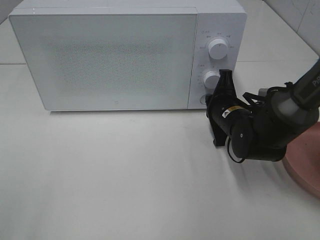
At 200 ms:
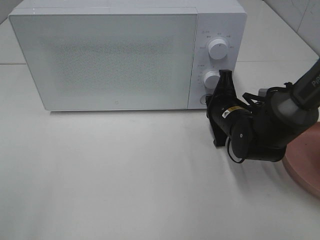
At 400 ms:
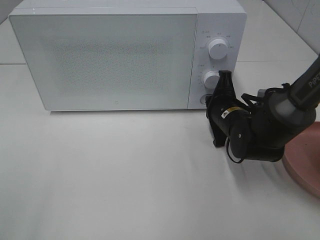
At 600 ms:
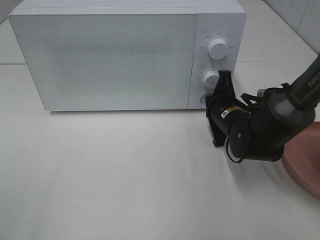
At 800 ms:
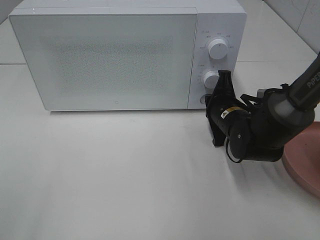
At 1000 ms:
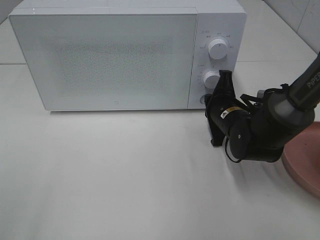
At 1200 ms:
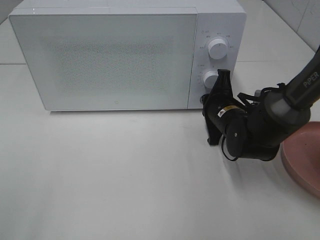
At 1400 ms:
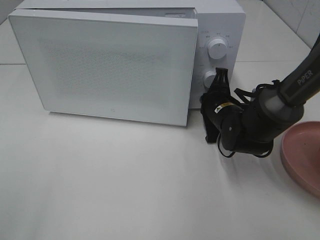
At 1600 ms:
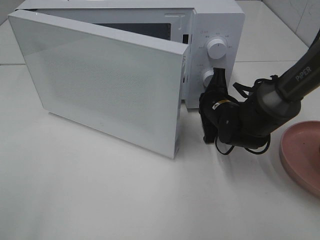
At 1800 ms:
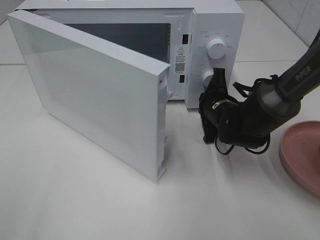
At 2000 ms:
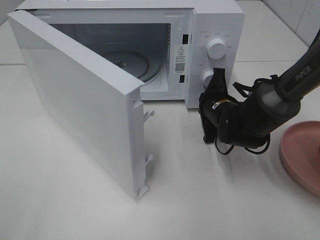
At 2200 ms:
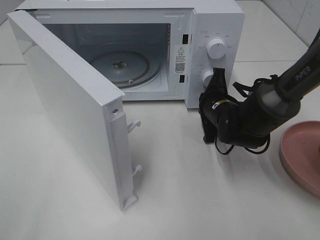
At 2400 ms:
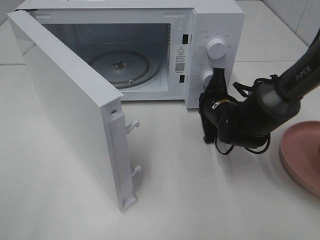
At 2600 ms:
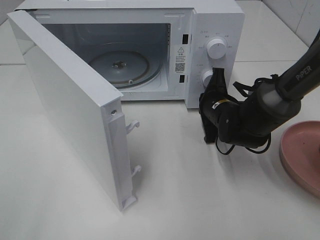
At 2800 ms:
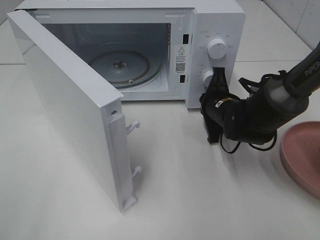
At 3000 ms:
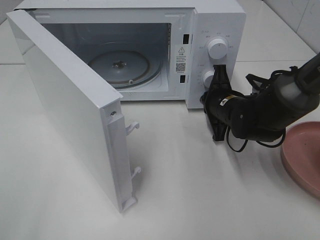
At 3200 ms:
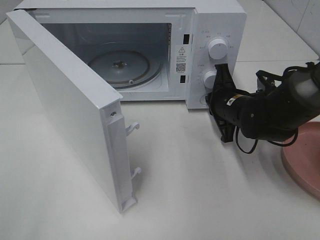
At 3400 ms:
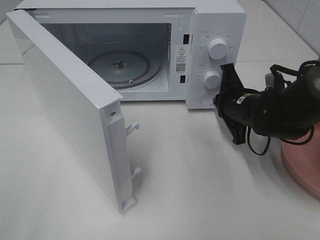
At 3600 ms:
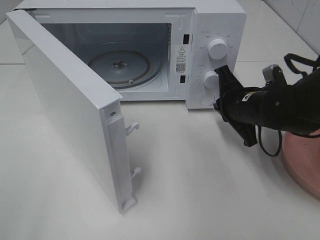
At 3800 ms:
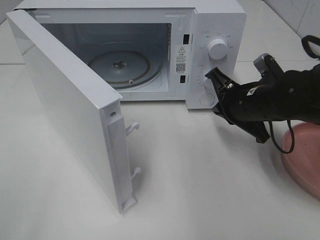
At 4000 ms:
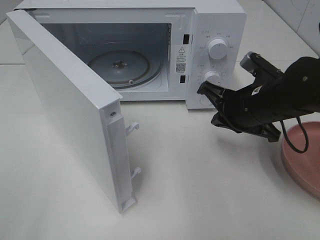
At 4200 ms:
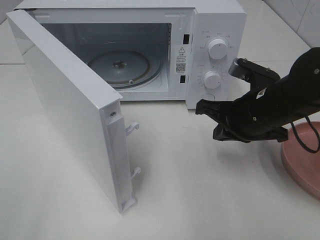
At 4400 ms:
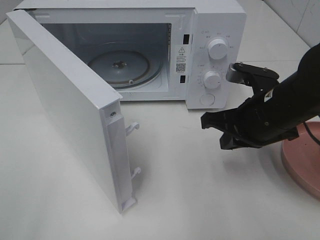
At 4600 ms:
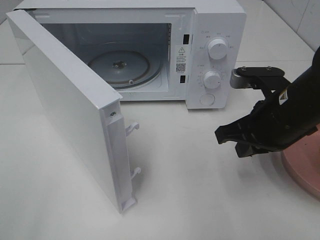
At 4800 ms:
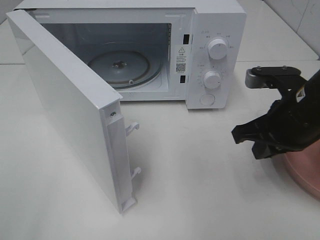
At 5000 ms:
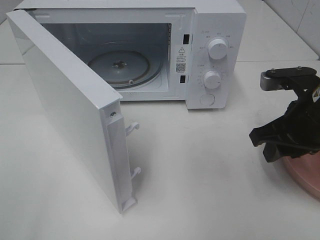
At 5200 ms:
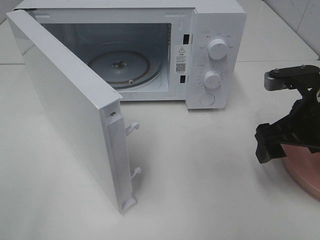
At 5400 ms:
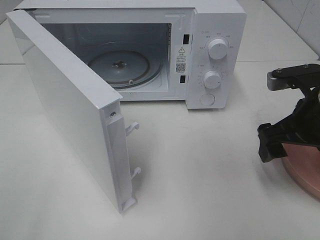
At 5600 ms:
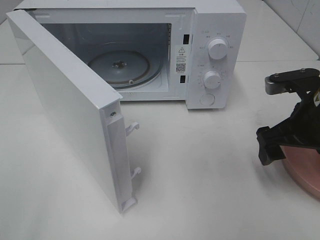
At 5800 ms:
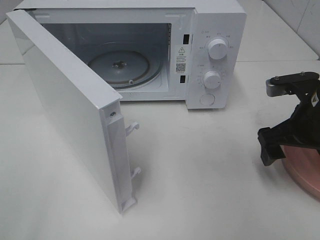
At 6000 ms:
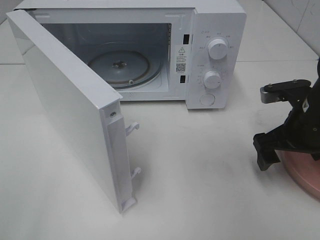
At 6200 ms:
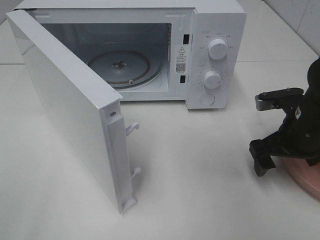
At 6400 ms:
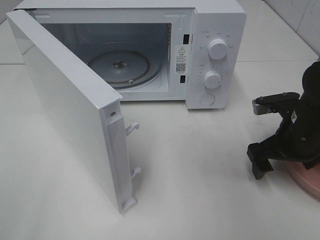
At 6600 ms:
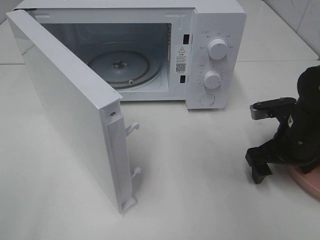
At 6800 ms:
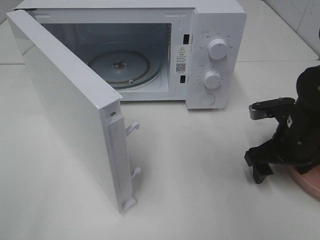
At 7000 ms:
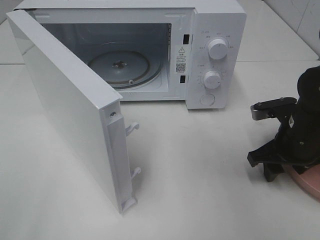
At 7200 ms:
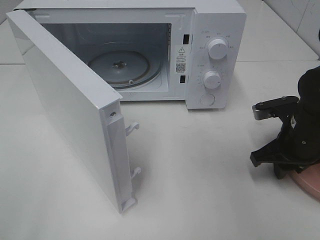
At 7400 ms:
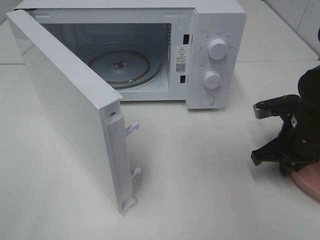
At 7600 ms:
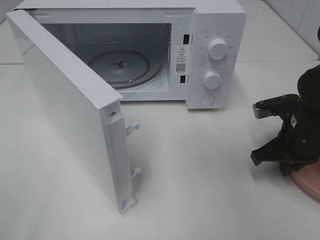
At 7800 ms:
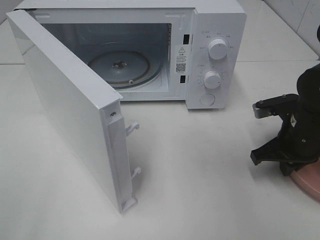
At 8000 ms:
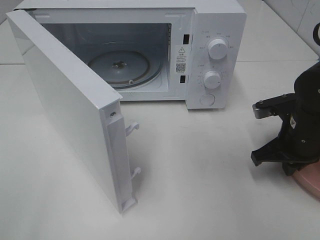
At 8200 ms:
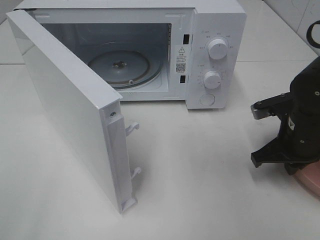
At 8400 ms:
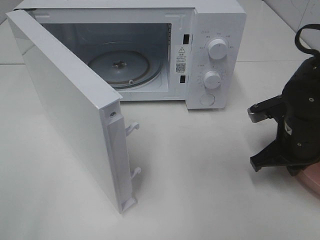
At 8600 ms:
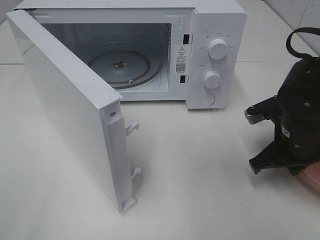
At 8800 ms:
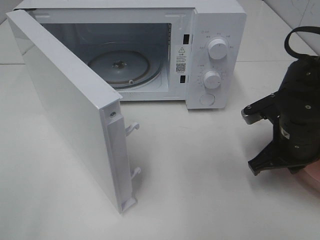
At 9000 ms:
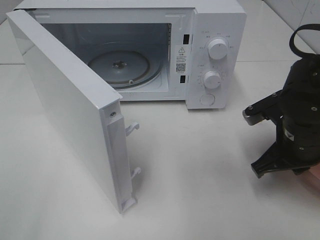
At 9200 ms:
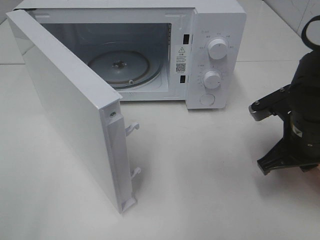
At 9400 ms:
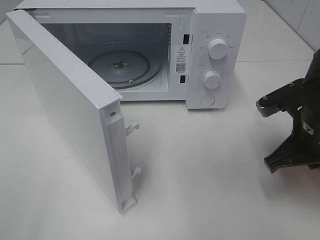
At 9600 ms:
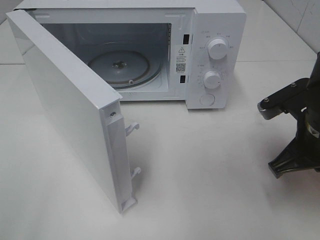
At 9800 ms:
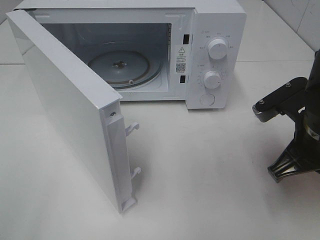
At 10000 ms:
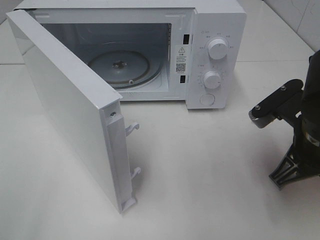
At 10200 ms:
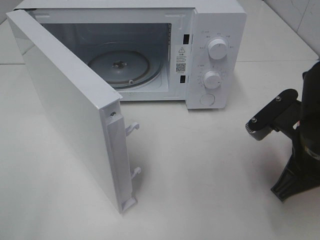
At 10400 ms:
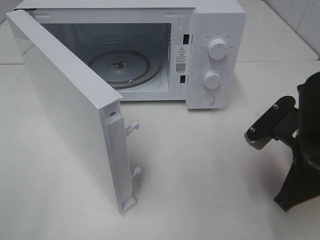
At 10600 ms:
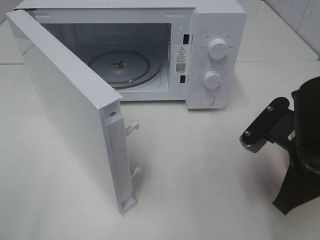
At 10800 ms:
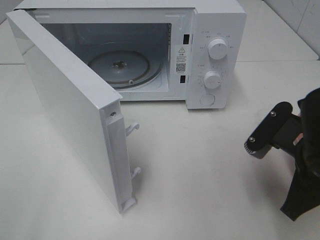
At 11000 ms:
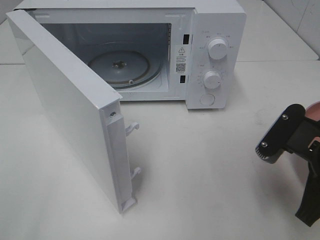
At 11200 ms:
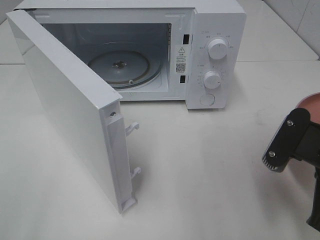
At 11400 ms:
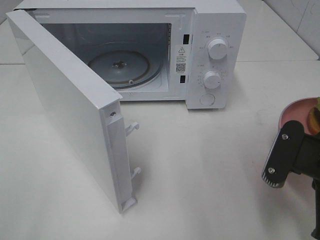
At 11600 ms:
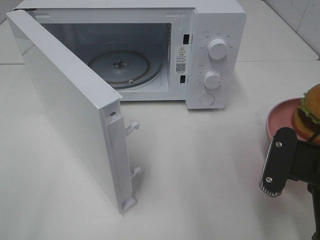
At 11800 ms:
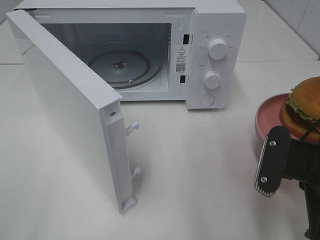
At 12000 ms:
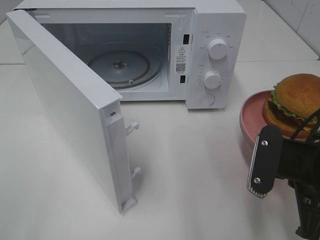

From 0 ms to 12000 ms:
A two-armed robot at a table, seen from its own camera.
Task of the whole recording: Heat the burger.
Step, from 0 ms to 3200 ms: Right hand: press the switch.
Step, from 3400 ms to 7400 ms: Right hand: grab the plate with the hamburger.
From 0 ms to 1600 ms: The grippers stay close to where they were, moving slightly.
From 3000 ms to 4400 ms: The right gripper goes about 15 cm backward and upward.
From 4400 ms to 6000 ms: The right gripper shifts approximately 5 cm to the right, and opens up.
From 6000 ms to 7600 ms: The right gripper closes up.
From 7600 ms to 9000 ms: The right gripper ends up some 5 cm from where it was.
From 9000 ms to 10400 ms: The right gripper travels backward by roughly 5 cm.

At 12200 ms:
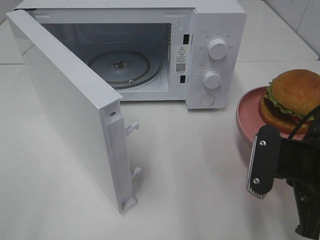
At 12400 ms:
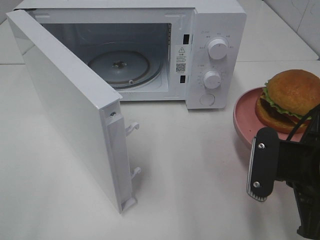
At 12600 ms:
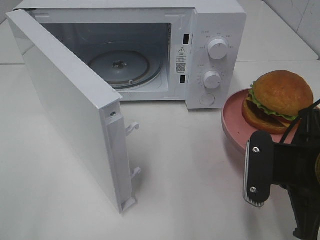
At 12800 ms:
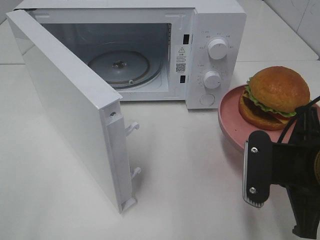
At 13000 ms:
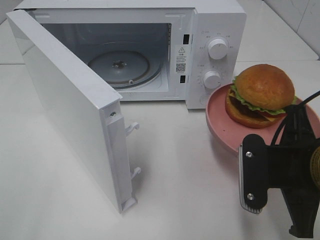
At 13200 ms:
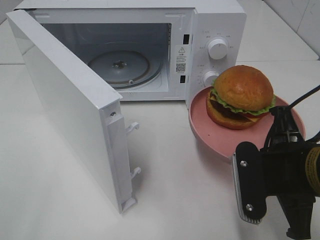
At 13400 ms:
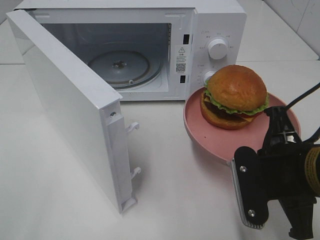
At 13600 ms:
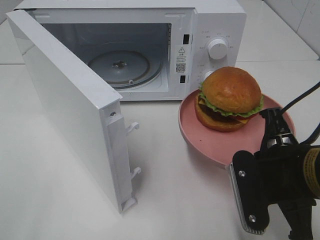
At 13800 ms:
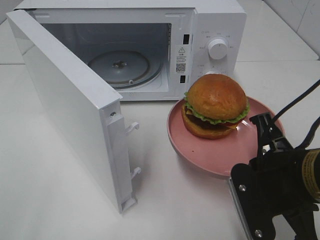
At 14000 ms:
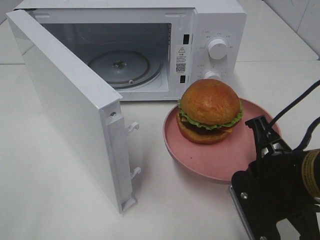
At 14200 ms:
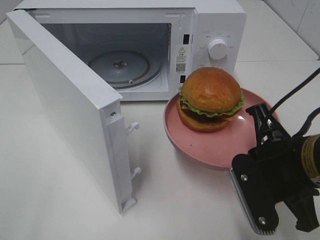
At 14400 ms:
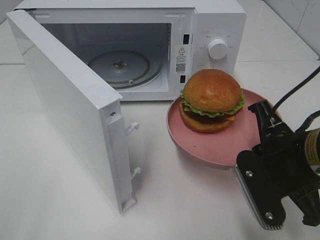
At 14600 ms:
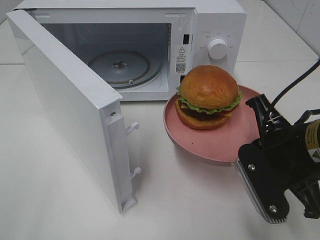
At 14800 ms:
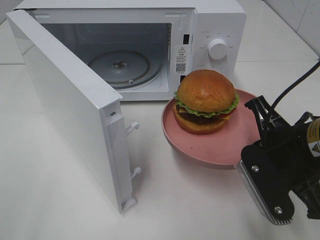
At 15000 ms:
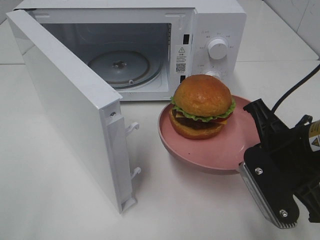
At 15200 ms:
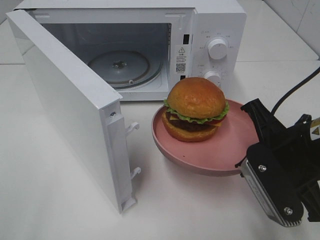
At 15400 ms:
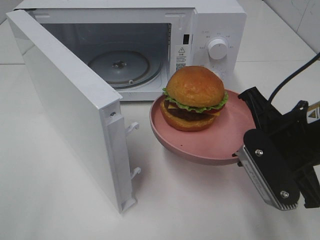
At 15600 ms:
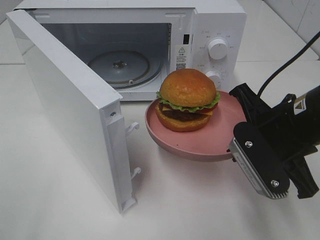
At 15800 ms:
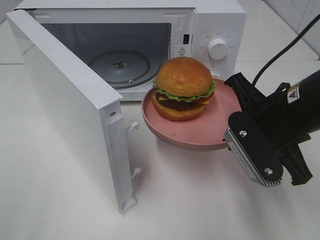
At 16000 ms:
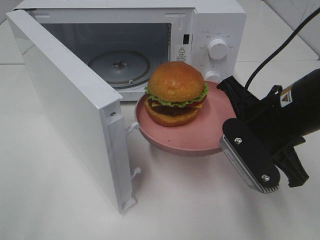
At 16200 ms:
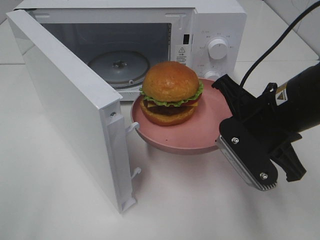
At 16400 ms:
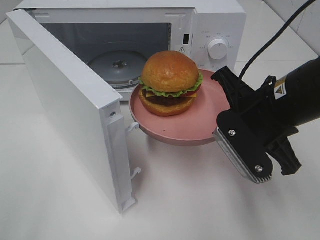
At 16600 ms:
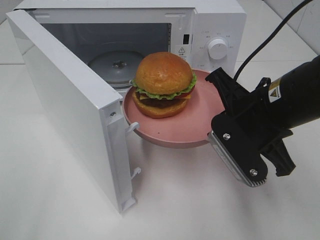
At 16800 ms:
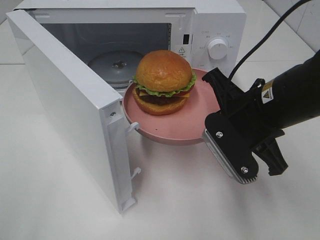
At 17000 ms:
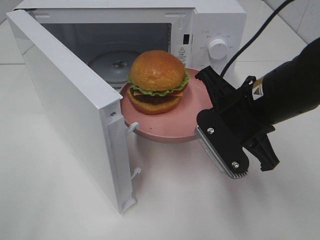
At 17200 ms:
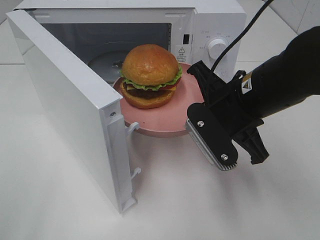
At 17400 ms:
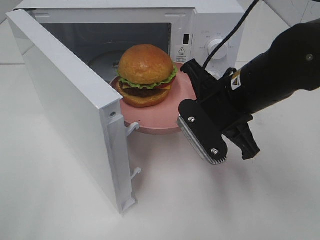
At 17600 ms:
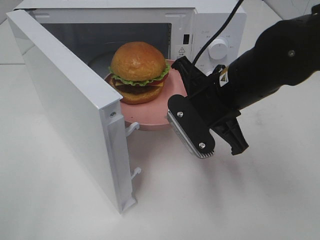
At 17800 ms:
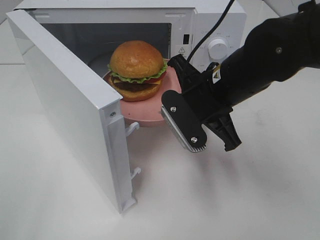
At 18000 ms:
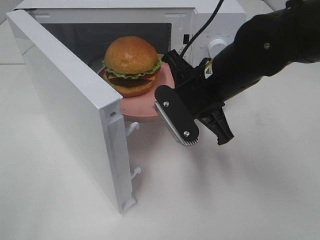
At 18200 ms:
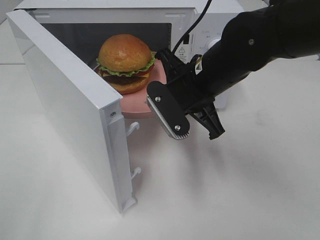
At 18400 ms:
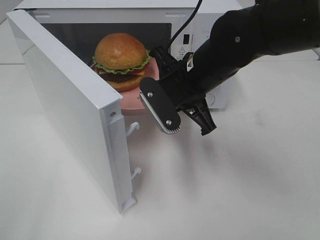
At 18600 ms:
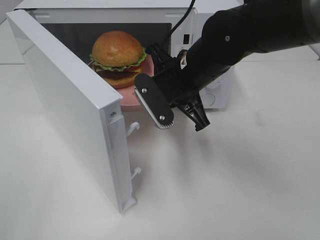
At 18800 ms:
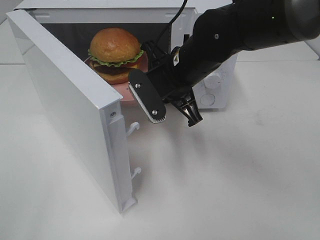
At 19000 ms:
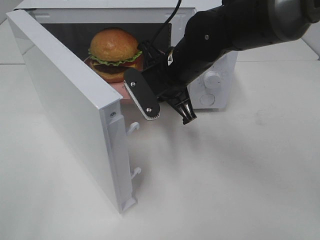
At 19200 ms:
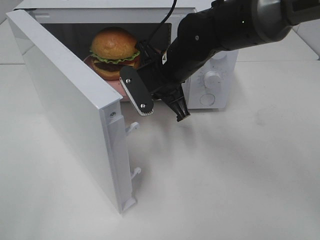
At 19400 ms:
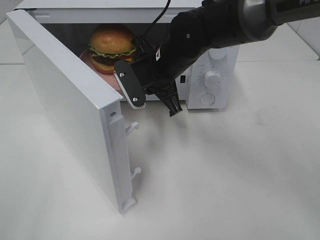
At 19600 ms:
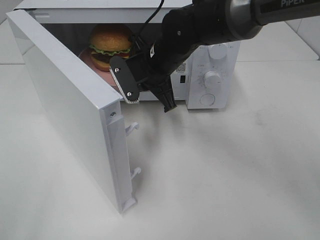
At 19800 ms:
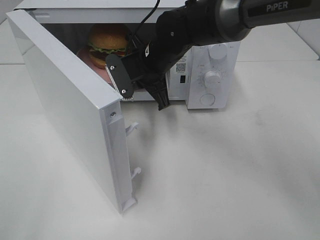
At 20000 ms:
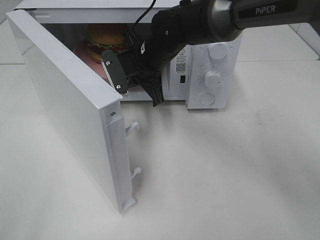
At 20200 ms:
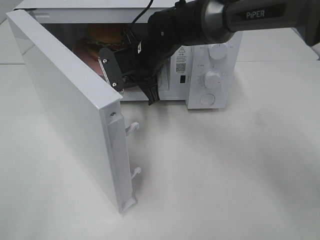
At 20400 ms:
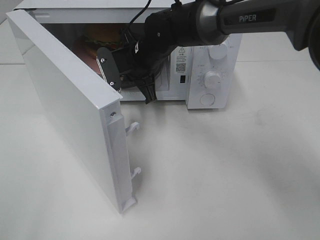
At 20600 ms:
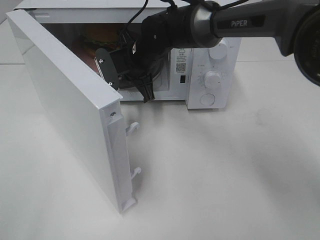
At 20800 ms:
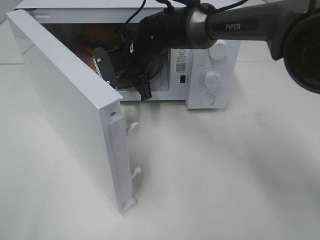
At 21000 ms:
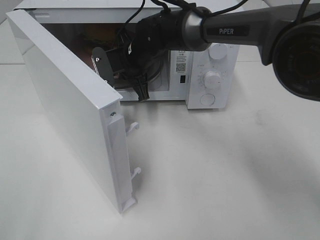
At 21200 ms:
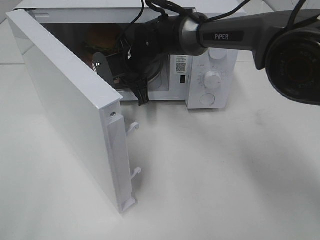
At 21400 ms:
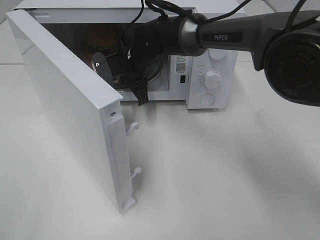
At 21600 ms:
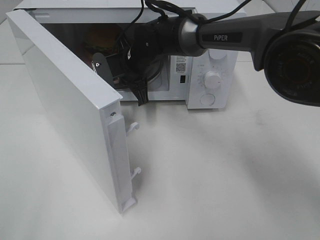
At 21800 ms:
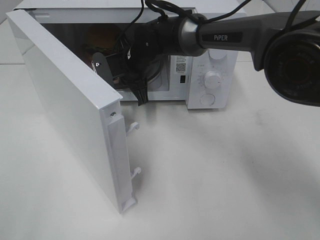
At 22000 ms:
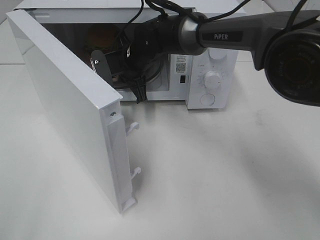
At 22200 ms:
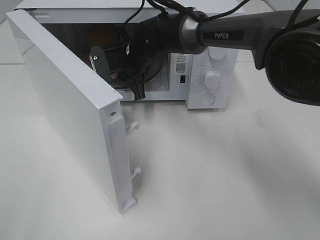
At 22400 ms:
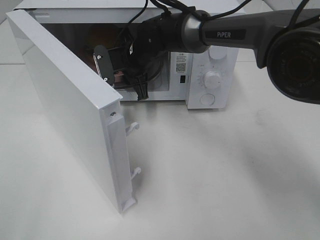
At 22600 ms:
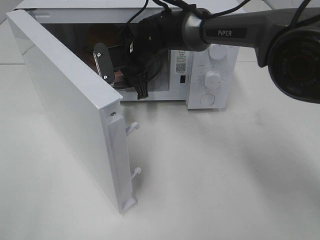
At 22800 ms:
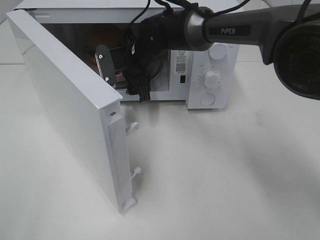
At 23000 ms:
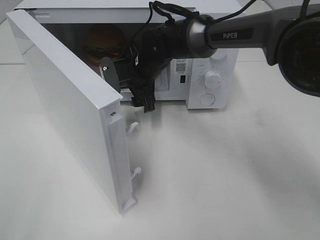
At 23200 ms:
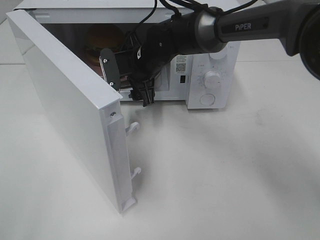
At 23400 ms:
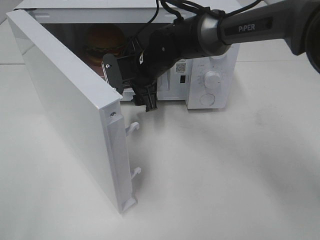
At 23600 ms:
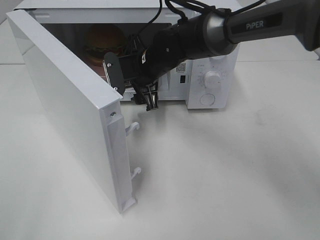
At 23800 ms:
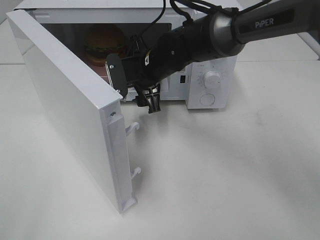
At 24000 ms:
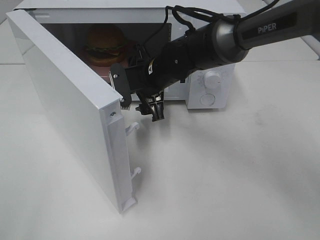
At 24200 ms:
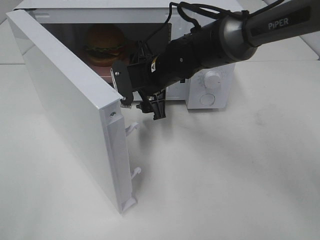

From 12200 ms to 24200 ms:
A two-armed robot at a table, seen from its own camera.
Task of the whole recording: Heat the burger.
Step, from 12200 ms to 22400 ms: Right hand: place the plate in the microwave.
From 13800 ms to 15200 ms: The grippers stay close to where they were, moving slightly.
From 15200 ms to 16600 ms: The right gripper shifts by approximately 5 cm.
From 16600 ms to 18200 ms: The right gripper shifts approximately 10 cm forward and to the left.
From 18200 ms to 19800 ms: The right gripper shifts approximately 10 cm forward and to the left.
From 19800 ms to 21200 ms: The right gripper ends up about 5 cm from where it was.
From 21200 ms to 22600 ms: The right gripper opens.
From 22600 ms to 24200 ms: The right gripper is displaced backward by some 5 cm.
